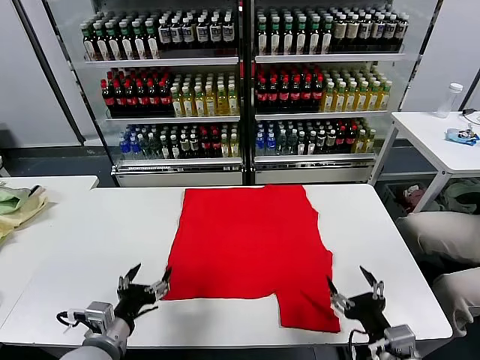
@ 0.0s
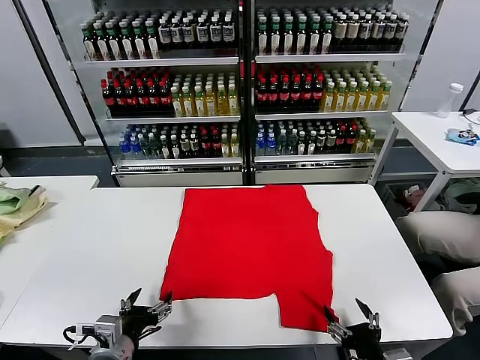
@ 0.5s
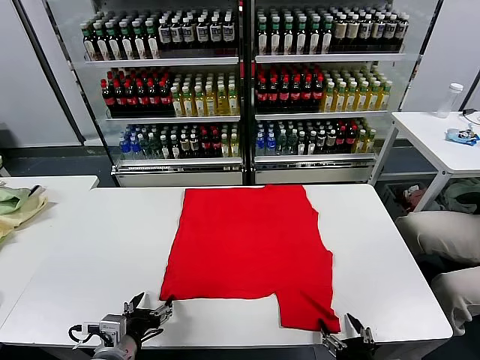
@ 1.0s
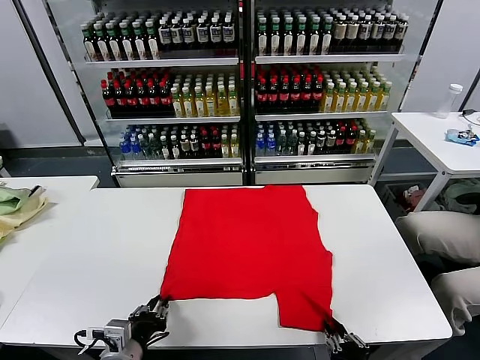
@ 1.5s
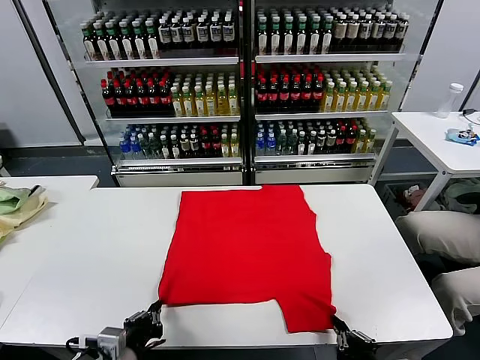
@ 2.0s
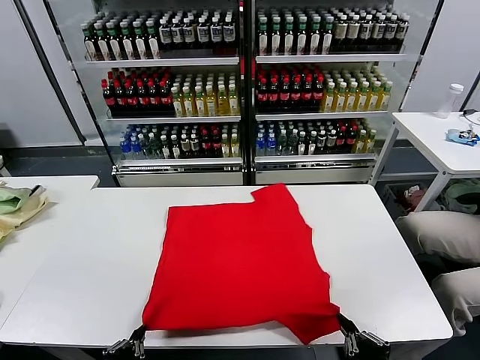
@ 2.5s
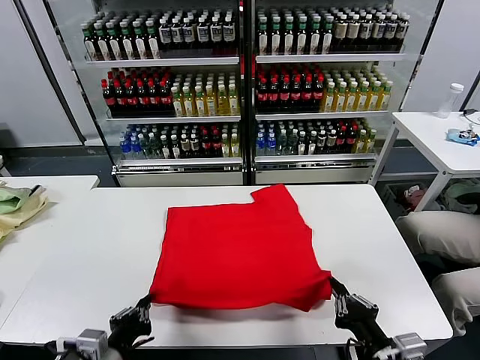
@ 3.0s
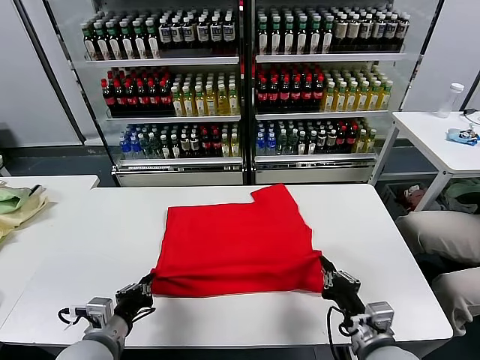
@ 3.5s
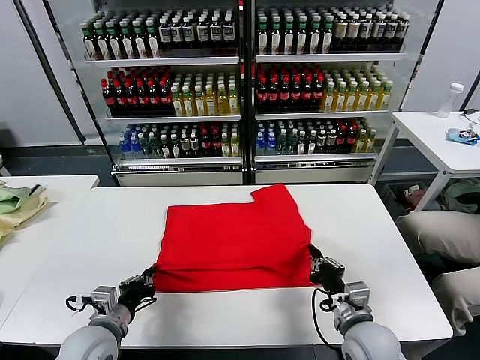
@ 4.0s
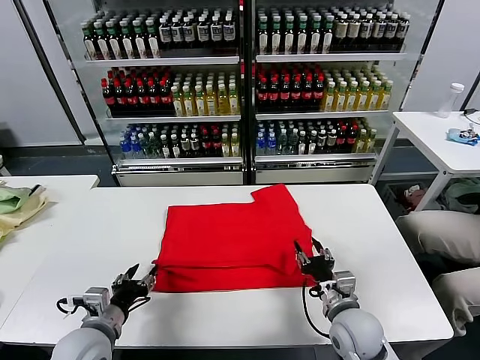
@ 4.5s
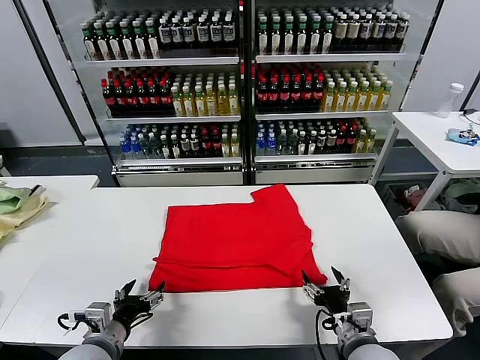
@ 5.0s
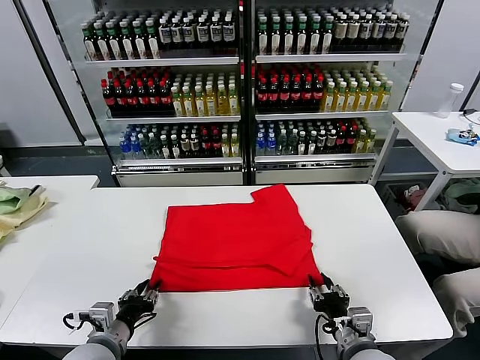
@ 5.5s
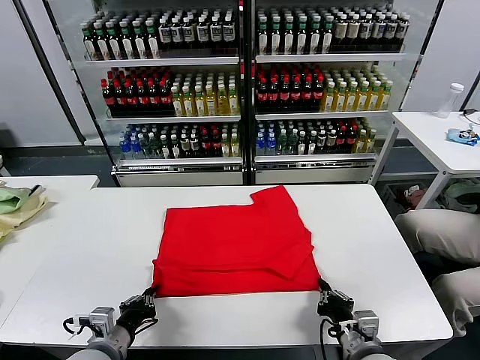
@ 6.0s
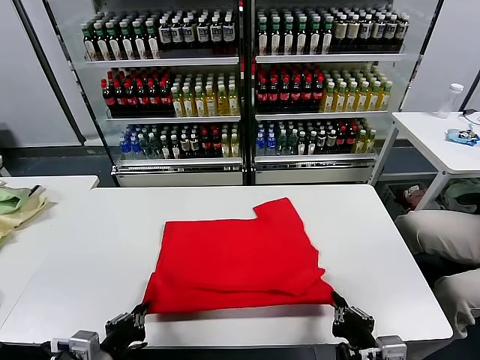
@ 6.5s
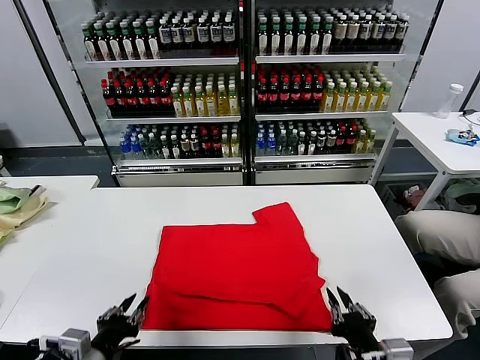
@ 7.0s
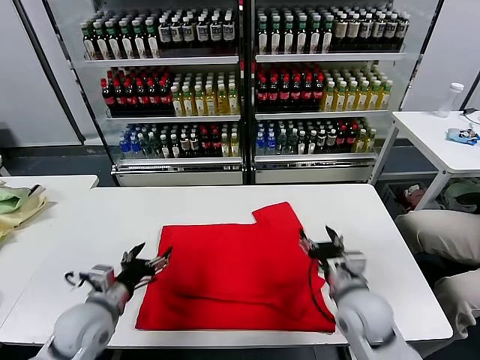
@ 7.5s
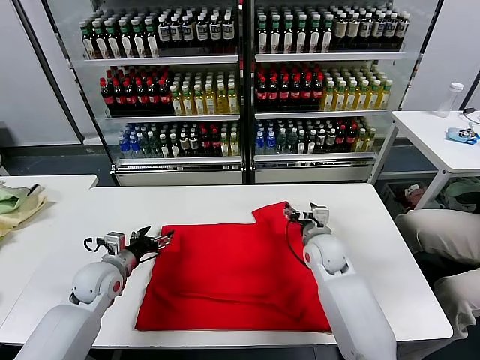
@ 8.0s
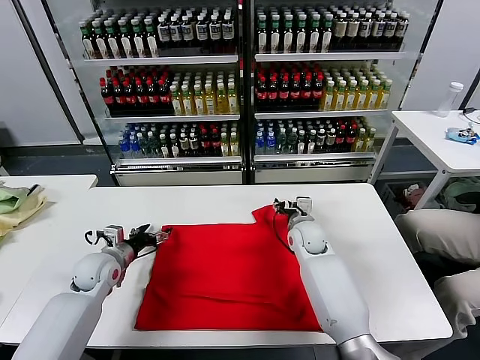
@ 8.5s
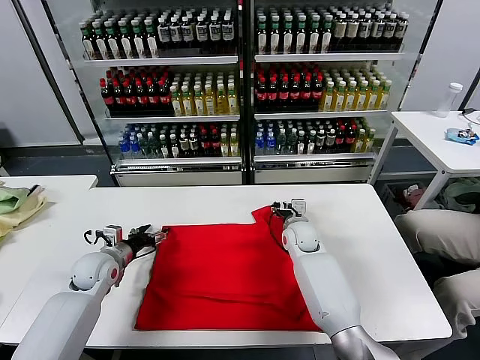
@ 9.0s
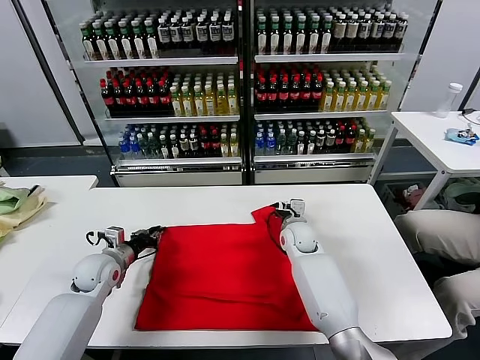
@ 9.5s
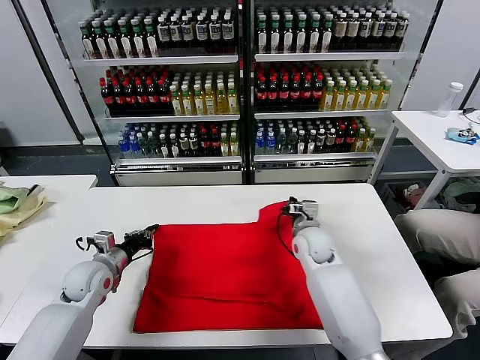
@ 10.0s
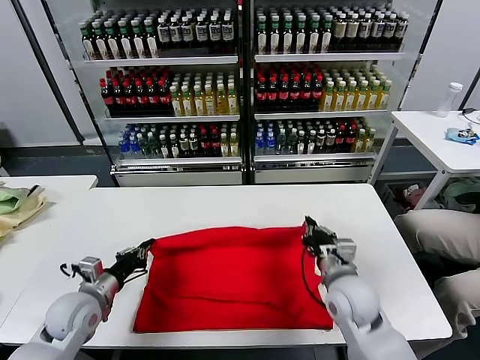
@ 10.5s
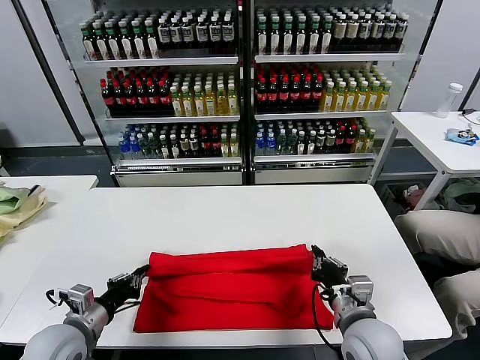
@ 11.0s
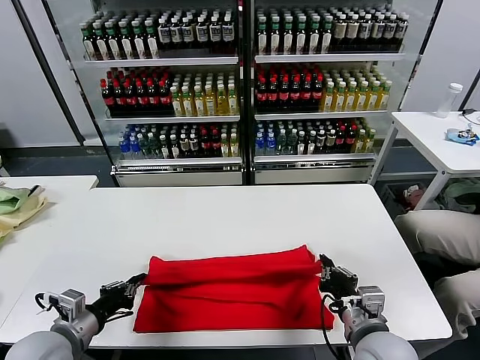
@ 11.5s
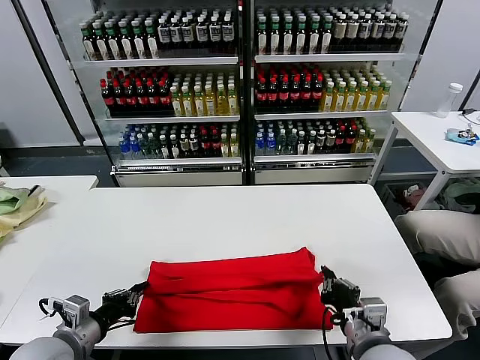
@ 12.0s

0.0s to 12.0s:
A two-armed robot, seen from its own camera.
Task of the whole recording: fold and organize the clothes.
Step, 0.0s to 1.5s: use both grippers simultaneously to clamp the lower edge of the clothing fabric.
Step, 2.0s to 4.0s: use both grippers to drag the lower edge of the fabric forward and fold it over the upper edge.
Step, 4.5s to 6.5s: Drag the clothes downward with both gripper.
Step, 7.0s to 9.5s: use both grippers simultaneously to clamp the upper edge of the clothing fabric.
2.0s to 4.0s: The left gripper moves forward, some 10 cm. Meanwhile the right gripper goes about 15 cm forward.
4.0s to 6.0s: The left gripper opens, then closes again; the right gripper shifts some 10 cm backward, and opens and closes again.
6.0s to 8.0s: The two grippers go roughly 25 cm forward. The left gripper opens up. Meanwhile the right gripper opens its fingers.
8.0s to 10.0s: The right gripper closes up. The left gripper closes up.
10.0s to 12.0s: Both grippers move backward, roughly 25 cm.

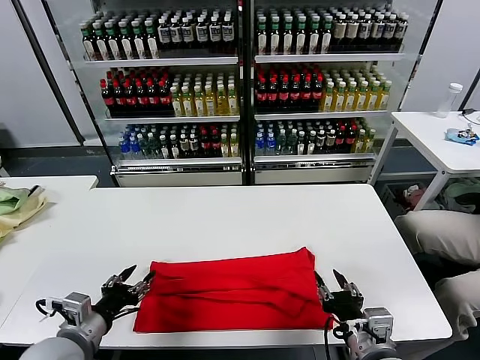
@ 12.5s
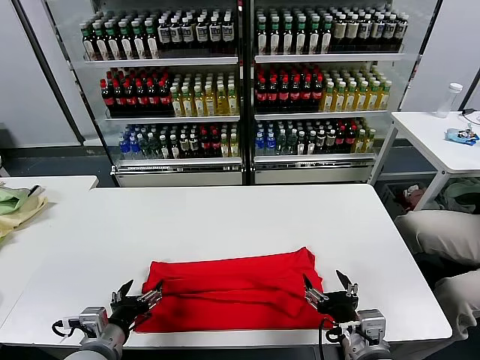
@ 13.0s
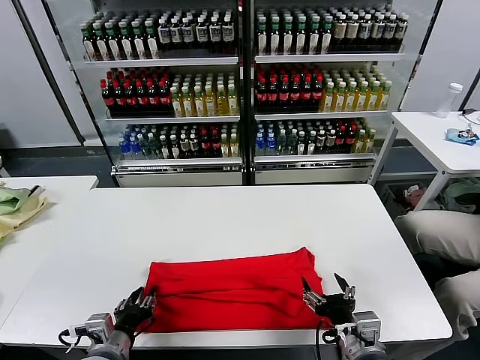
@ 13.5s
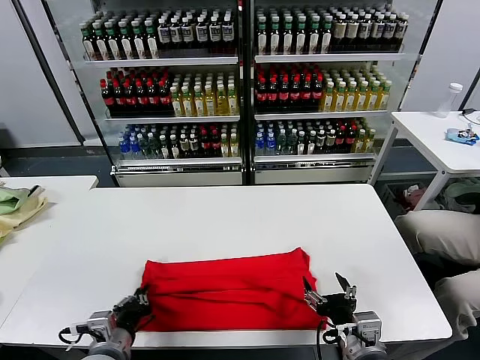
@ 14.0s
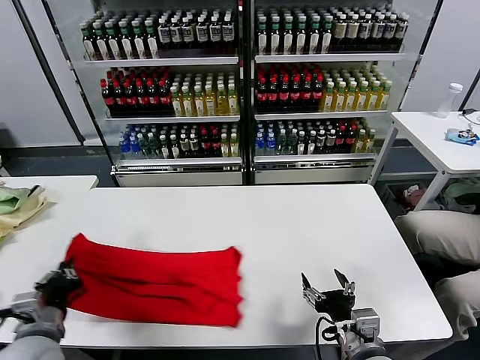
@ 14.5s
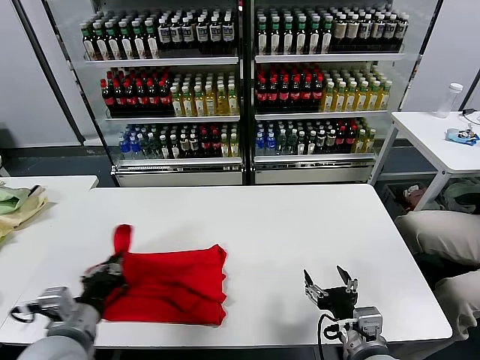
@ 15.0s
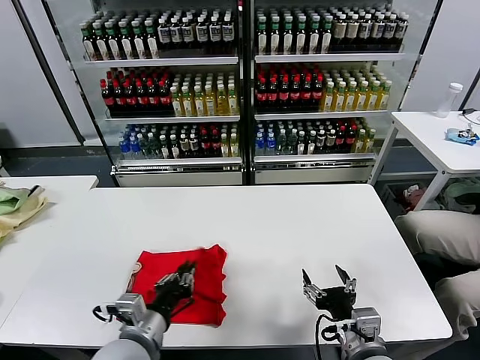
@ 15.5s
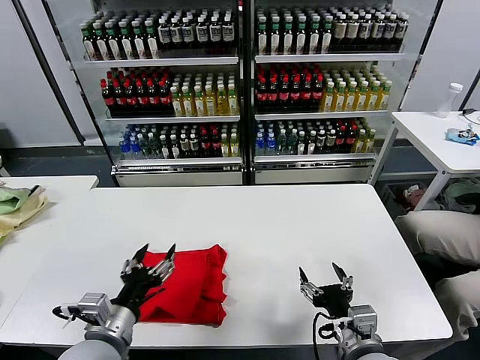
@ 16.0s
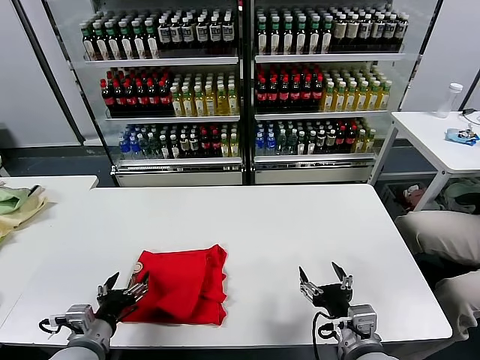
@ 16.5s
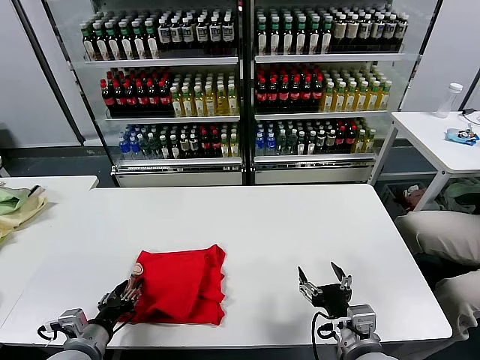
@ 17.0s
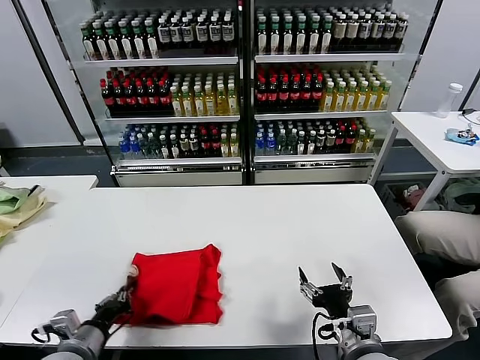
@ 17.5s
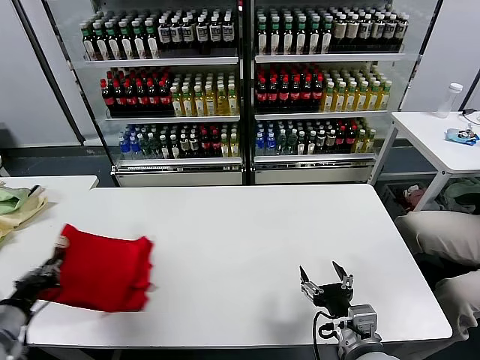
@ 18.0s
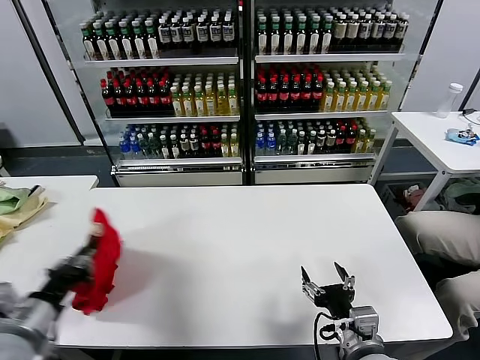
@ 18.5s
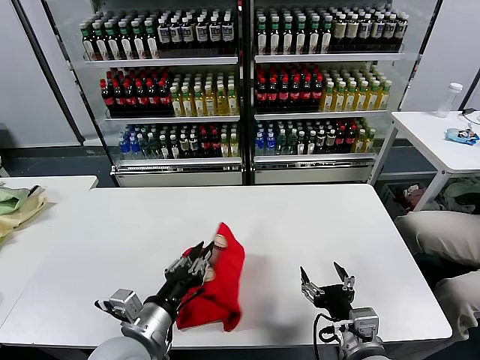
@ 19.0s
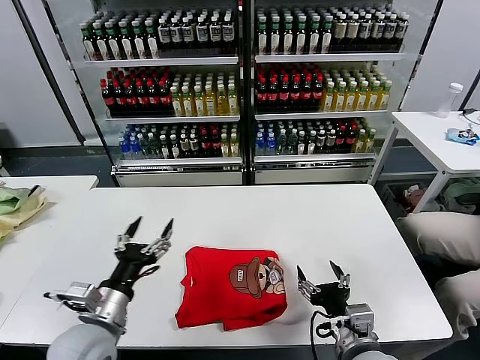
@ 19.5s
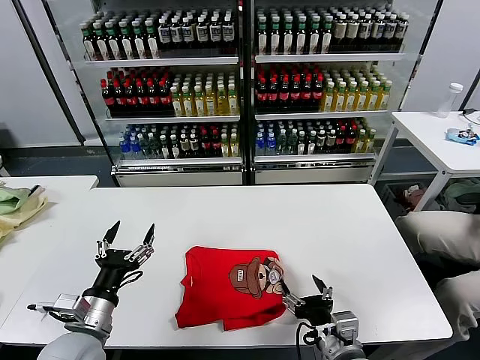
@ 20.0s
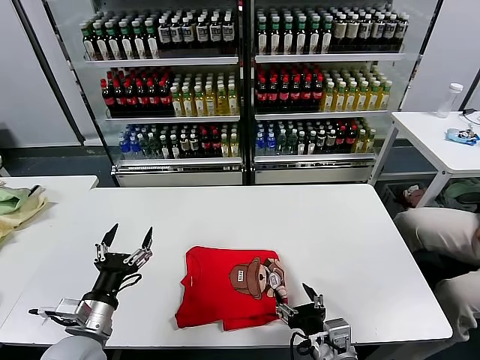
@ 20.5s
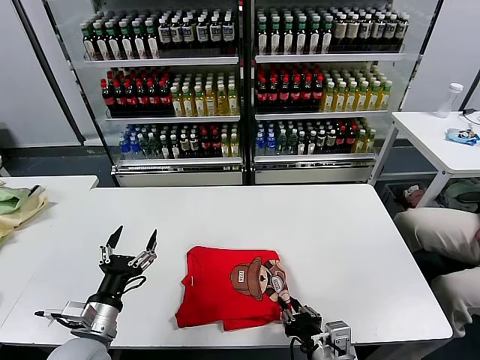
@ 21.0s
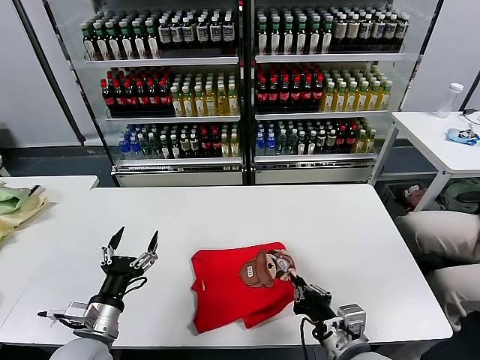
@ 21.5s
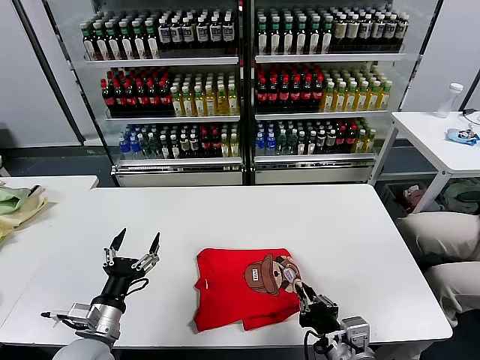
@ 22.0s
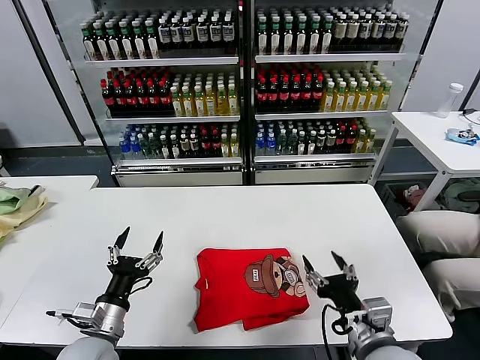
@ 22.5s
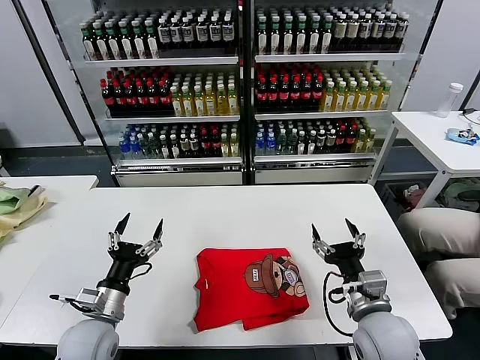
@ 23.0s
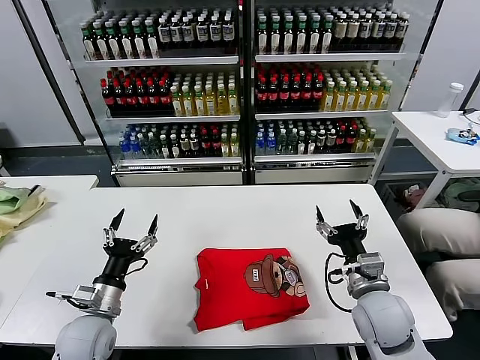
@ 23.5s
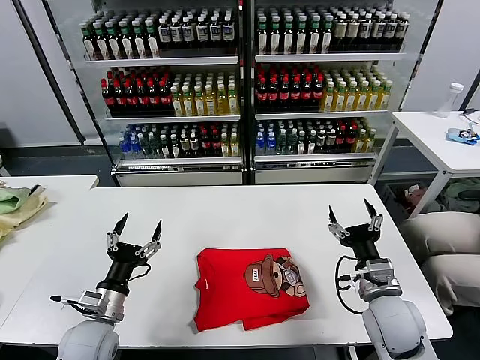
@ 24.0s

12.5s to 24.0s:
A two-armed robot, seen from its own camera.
Task of the whole recording: fold and organize the clothes.
Step, 12.5s to 13.5s: use the left gripper to clamp the left edge of the fabric.
Step, 14.0s to 15.5s: use the left gripper to drag the left edge of the fabric to the left and folds it over the right edge.
Step, 16.0s to 19.0s: Flip the folded clothes over with left gripper.
Step, 19.5s to 22.0s: Drag the clothes to the center of the table.
12.5s to 14.5s: The right gripper opens up. The left gripper closes its fingers.
14.5s to 16.5s: The left gripper is displaced downward by roughly 5 cm, goes to the right and returns, about 15 cm each way, and opens.
16.5s to 18.5s: The left gripper travels upward and to the left by about 15 cm, and closes up.
18.5s to 20.0s: The left gripper shifts approximately 10 cm to the right and downward, and opens up.
20.0s to 22.0s: The right gripper closes up.
22.0s to 24.0s: The right gripper is displaced forward and to the right by some 15 cm, and opens its fingers.

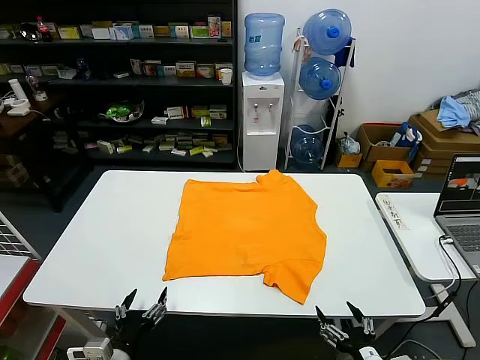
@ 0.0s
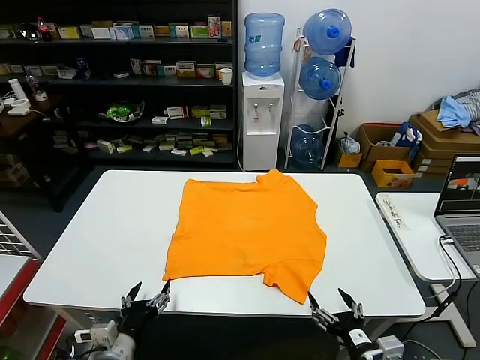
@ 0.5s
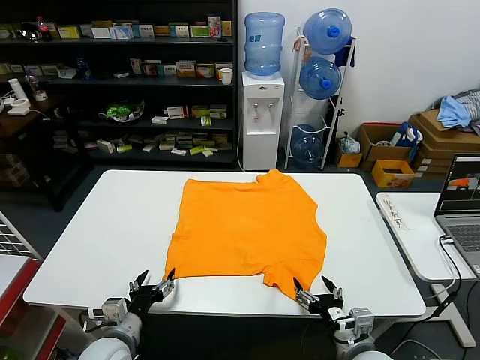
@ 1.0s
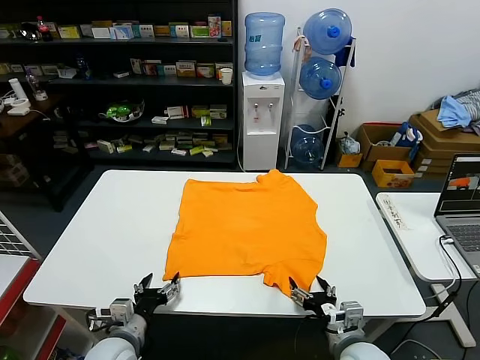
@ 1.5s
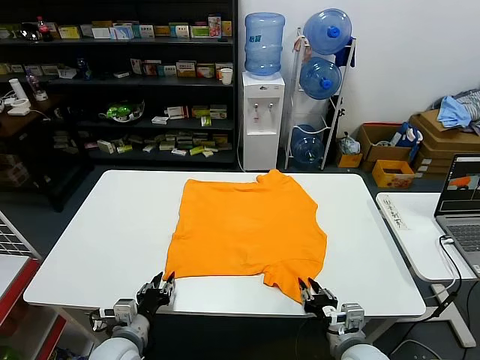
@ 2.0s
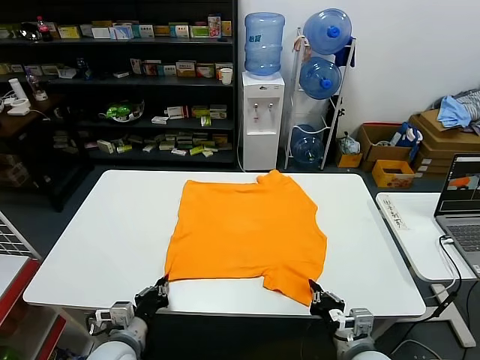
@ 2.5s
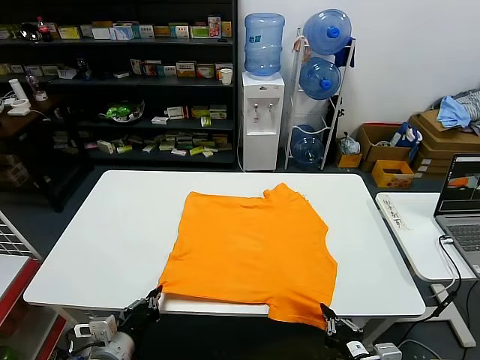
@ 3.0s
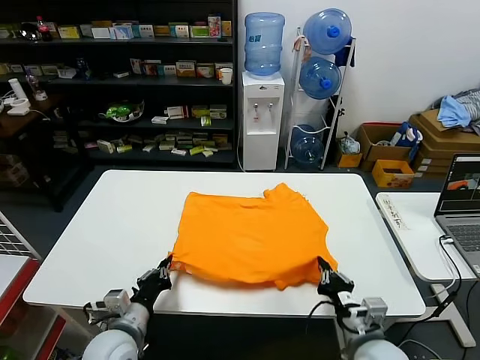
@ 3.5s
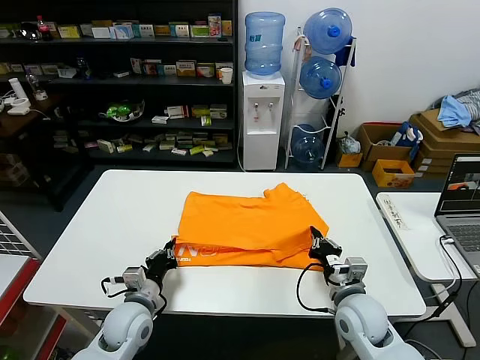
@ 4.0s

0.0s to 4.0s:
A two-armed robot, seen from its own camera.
Task of the whole recording: fold and organize the clothes.
Step, 0.0s to 2.0s: use both grippers simultaneously to clamp the lower edge of the clothing fabric.
2.0s to 4.0s: The left gripper goes about 5 cm forward, and closes; the right gripper travels forward by some 10 cm, and closes.
